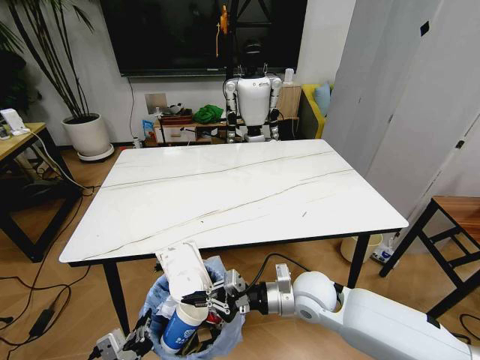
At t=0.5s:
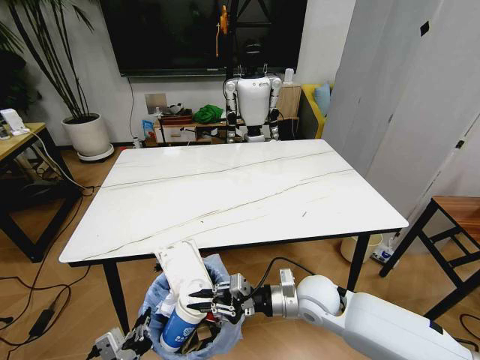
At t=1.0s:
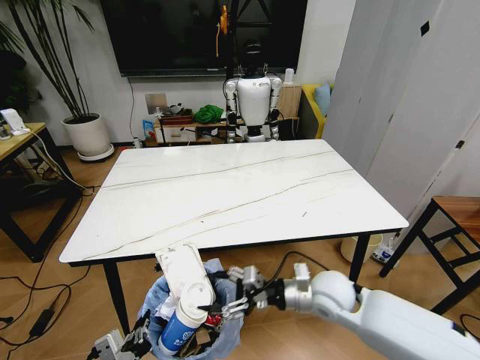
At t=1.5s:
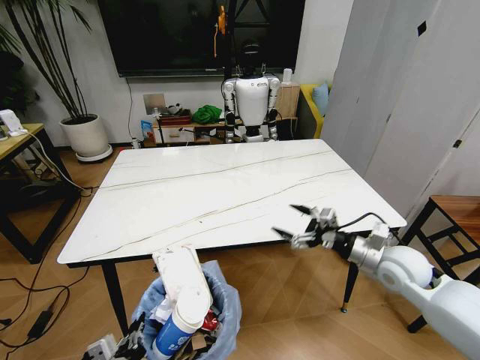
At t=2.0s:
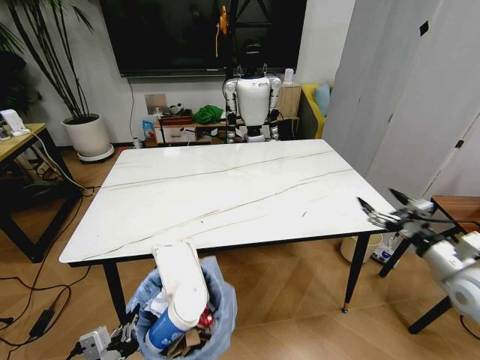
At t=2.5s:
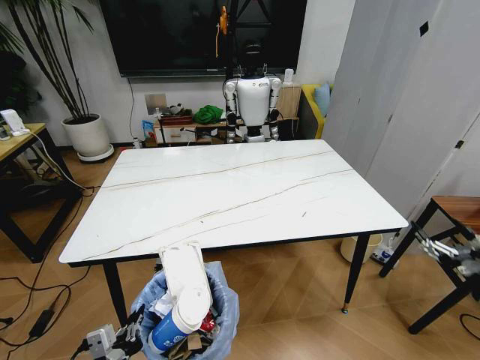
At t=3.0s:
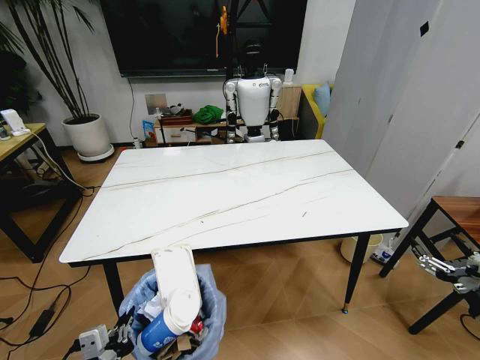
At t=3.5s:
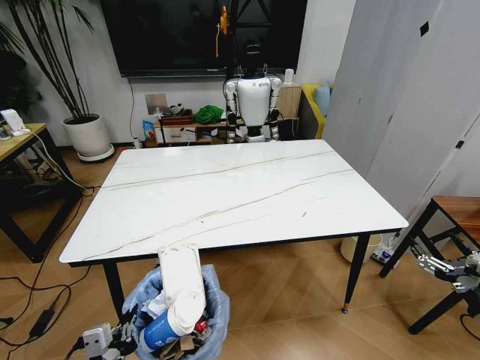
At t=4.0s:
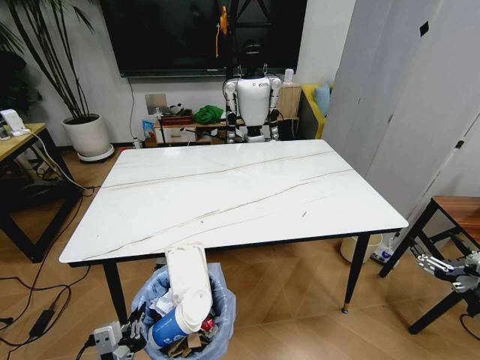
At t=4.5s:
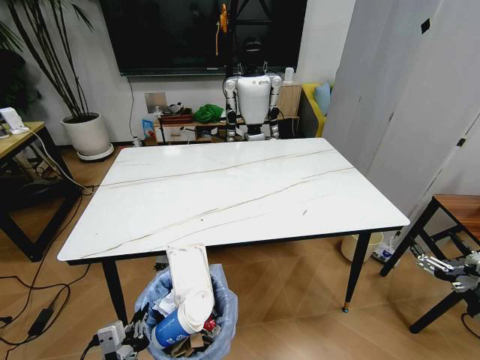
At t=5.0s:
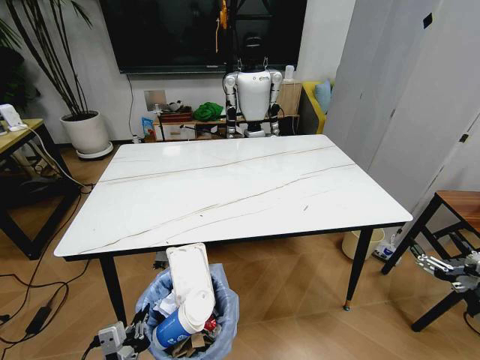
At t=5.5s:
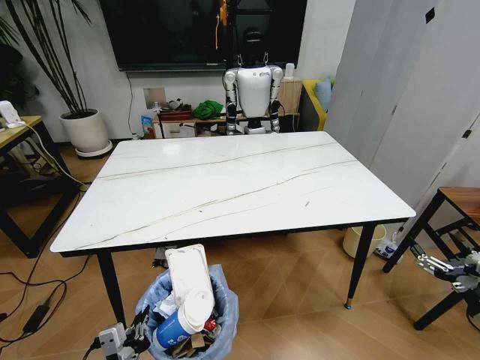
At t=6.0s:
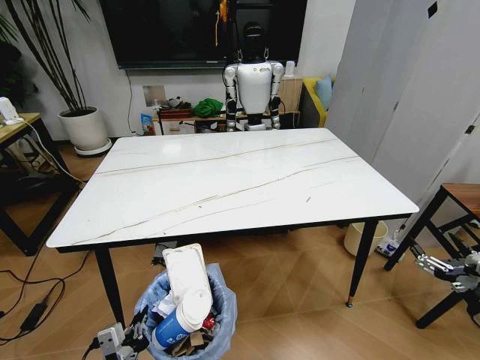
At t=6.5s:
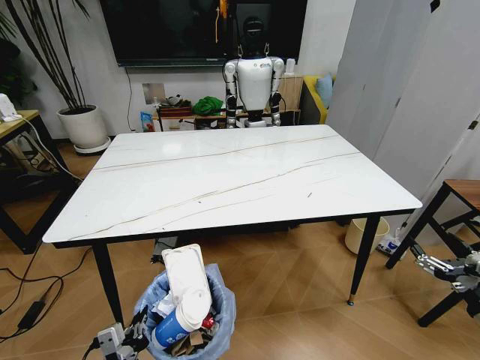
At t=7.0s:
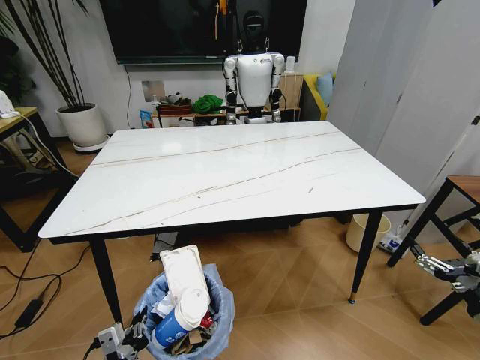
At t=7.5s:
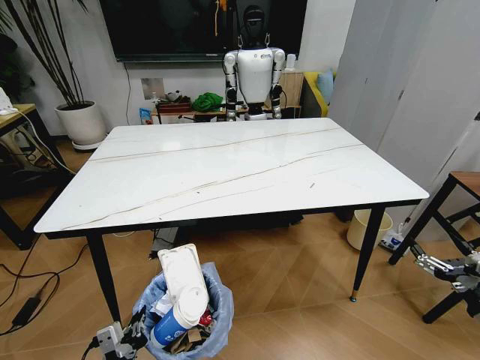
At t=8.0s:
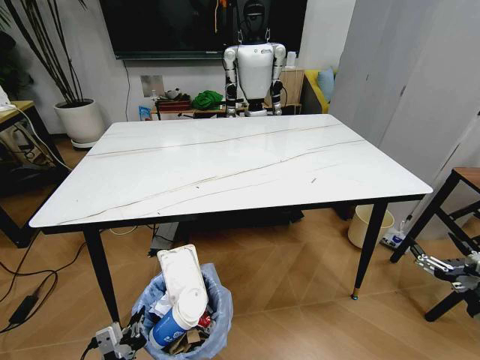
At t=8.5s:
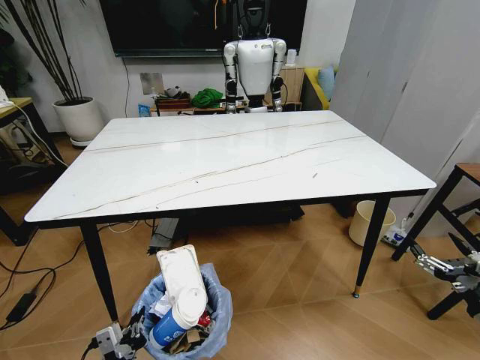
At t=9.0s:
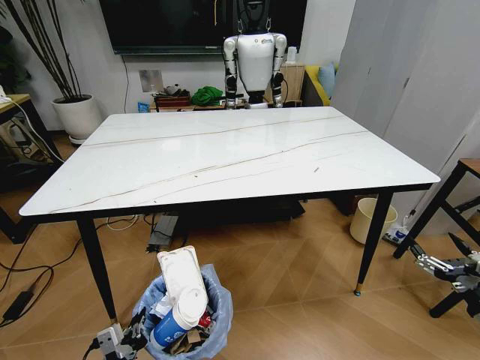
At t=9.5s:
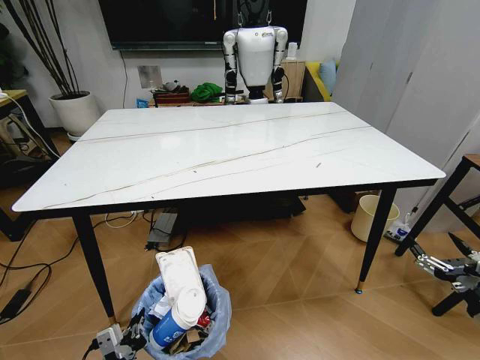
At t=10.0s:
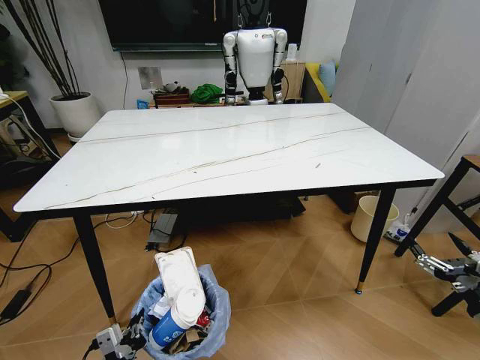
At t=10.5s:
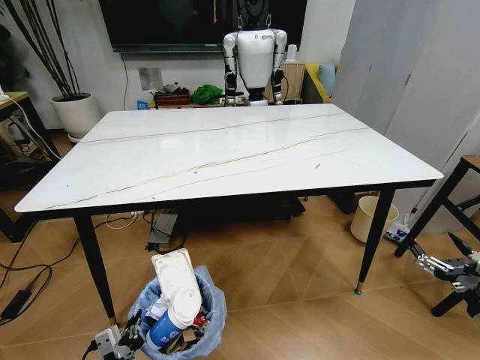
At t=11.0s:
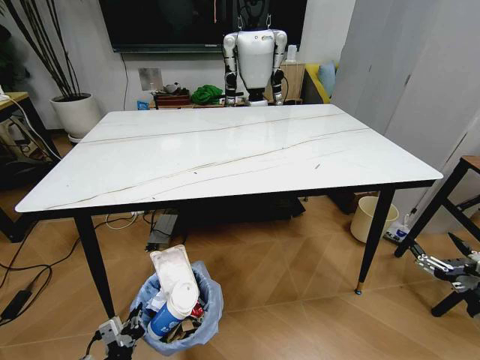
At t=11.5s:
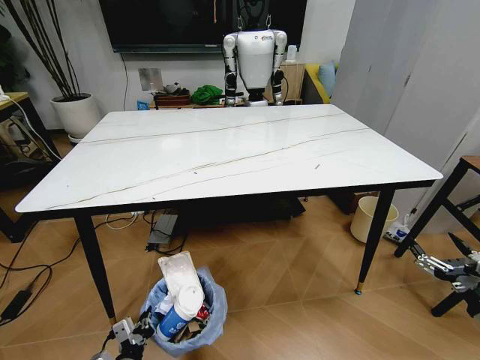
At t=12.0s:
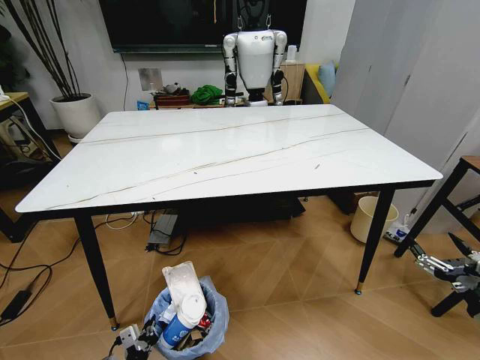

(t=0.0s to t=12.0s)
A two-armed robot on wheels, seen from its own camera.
Task of the whole recording: Pick up the trash bin and place the trash from the table into it.
t=0.0s - t=2.0s: The right gripper travels to the right by some 30 cm, and opens its fingers.
t=2.0s - t=4.0s: The right gripper travels backward by approximately 15 cm.
t=10.0s - t=12.0s: The left gripper is displaced downward and forward by about 15 cm.

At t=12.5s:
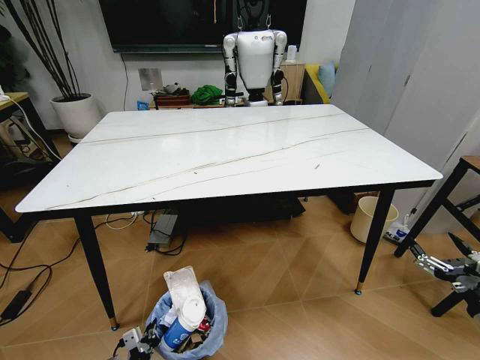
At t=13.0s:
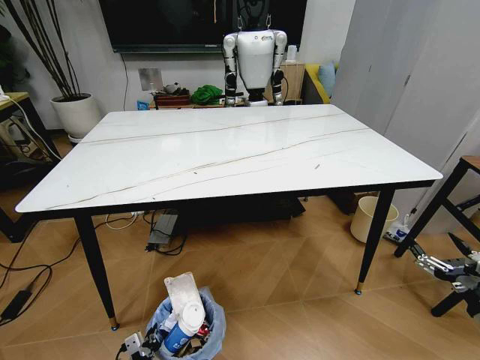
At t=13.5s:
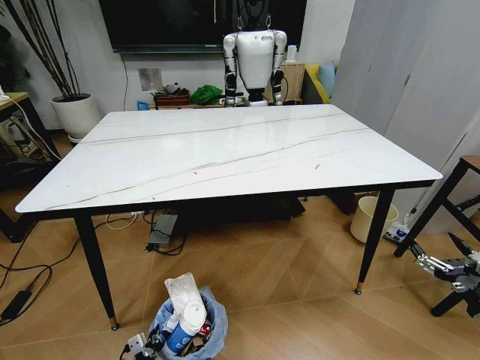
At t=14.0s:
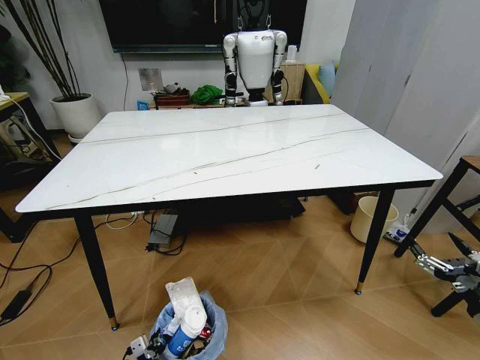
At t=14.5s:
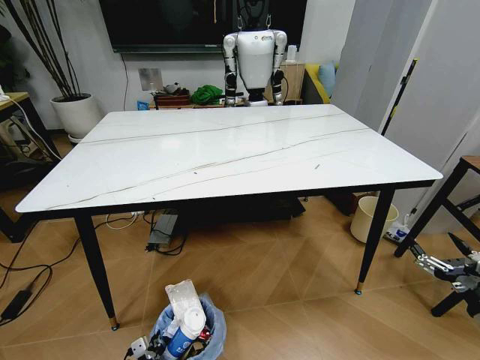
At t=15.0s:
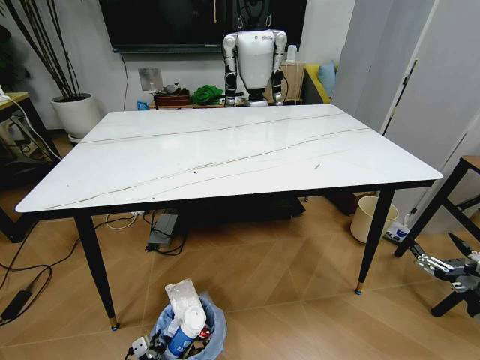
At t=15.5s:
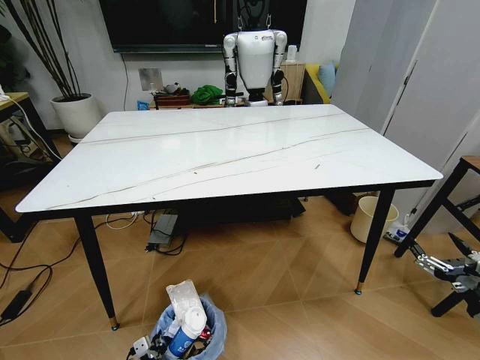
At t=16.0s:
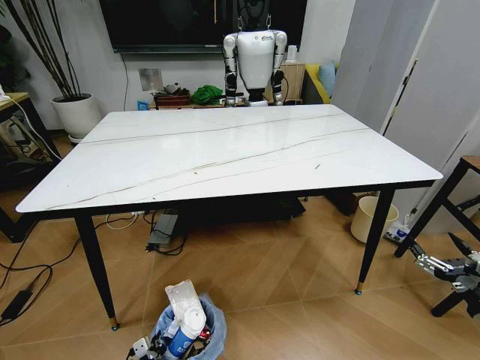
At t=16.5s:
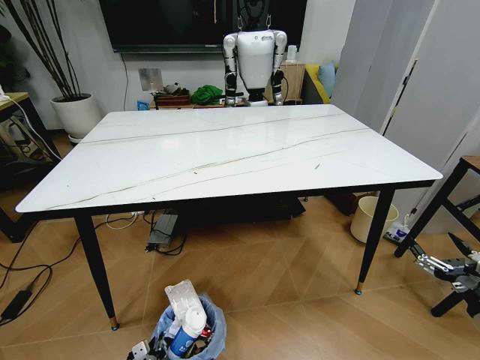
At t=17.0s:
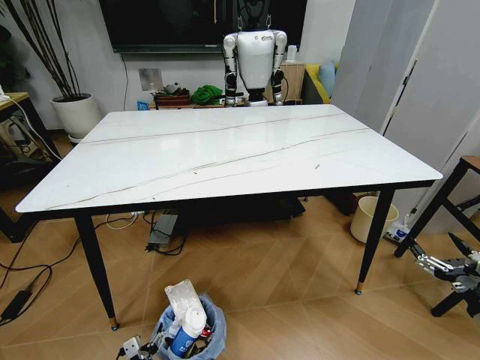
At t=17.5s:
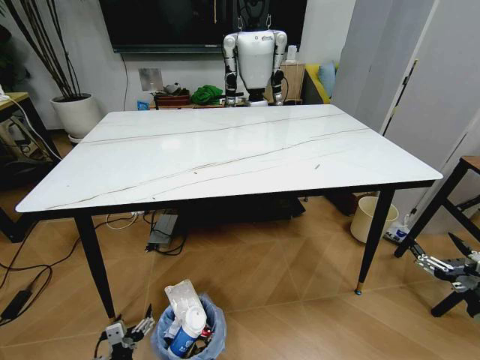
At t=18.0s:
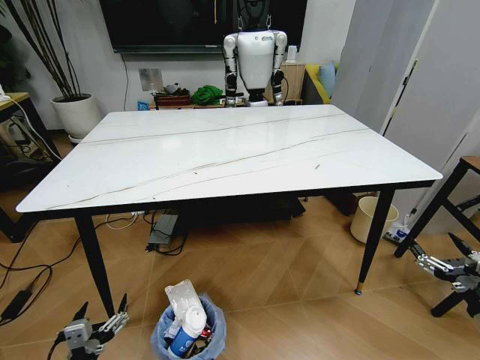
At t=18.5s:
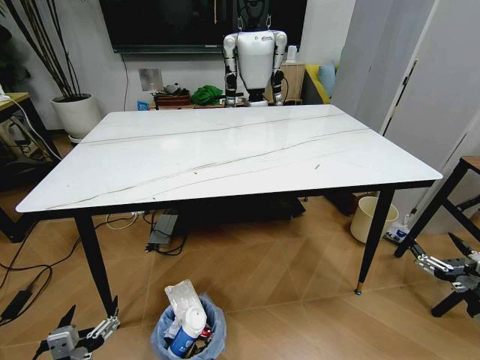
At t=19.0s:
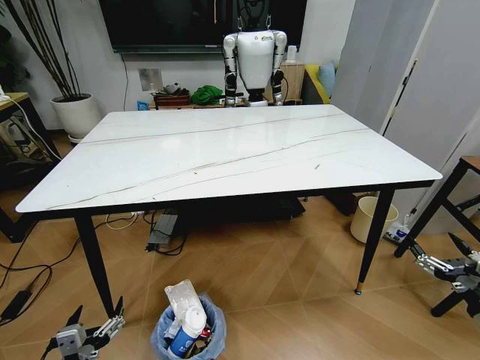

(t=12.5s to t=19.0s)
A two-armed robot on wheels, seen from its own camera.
Task of the whole recording: Pick up the trash bin and place the trash from the table into it.
t=12.5s - t=14.5s: The left gripper moves downward, some 5 cm.
t=14.5s - t=17.0s: The left gripper opens up.
t=17.0s - t=19.0s: The left gripper goes roughly 20 cm upward.
